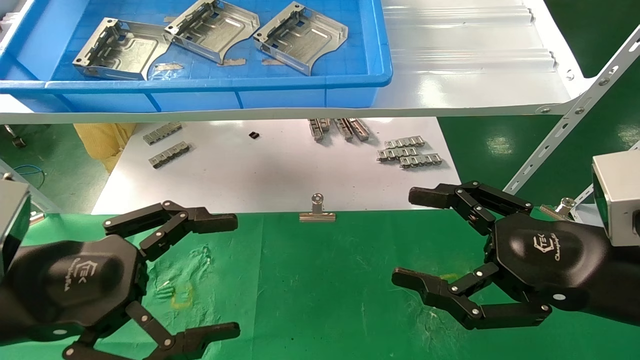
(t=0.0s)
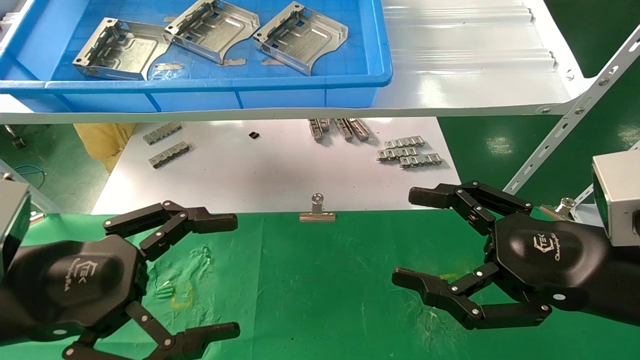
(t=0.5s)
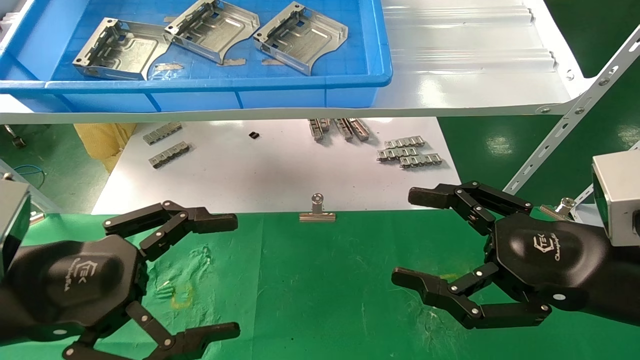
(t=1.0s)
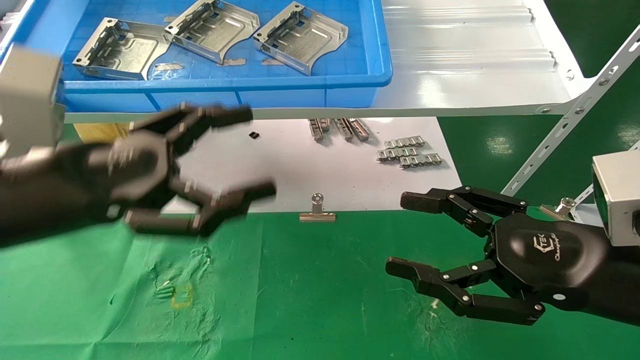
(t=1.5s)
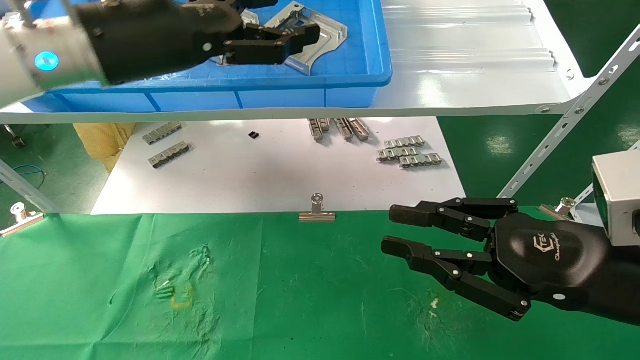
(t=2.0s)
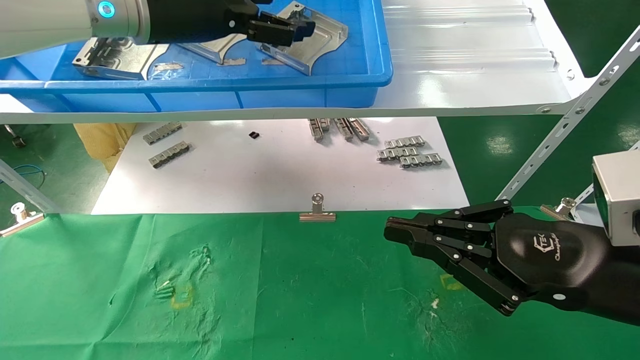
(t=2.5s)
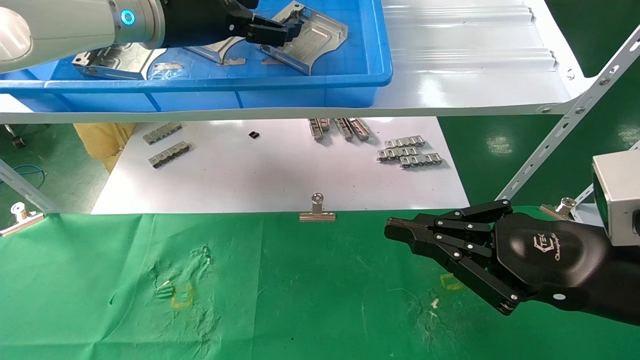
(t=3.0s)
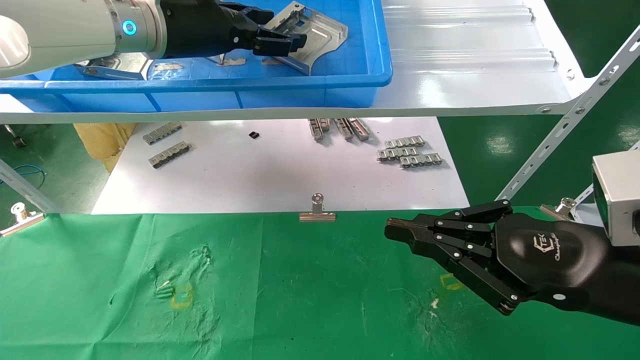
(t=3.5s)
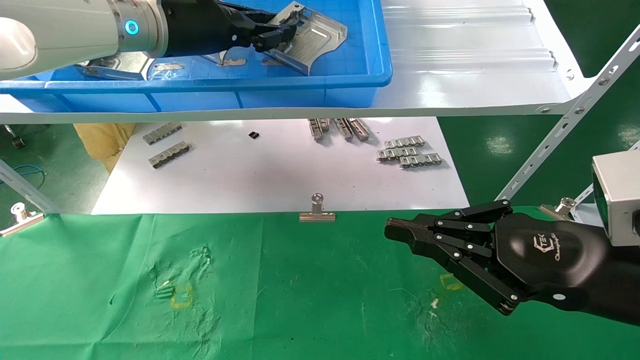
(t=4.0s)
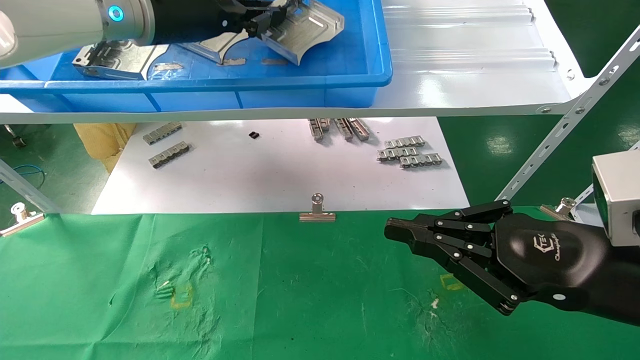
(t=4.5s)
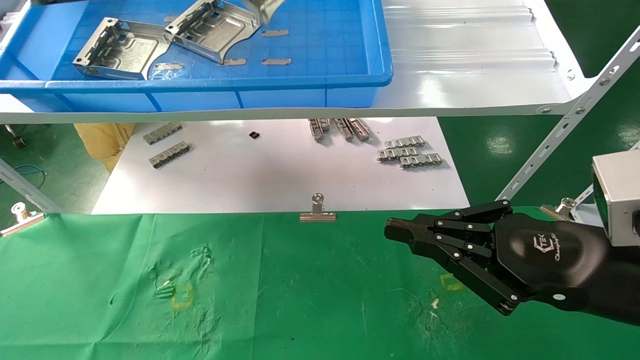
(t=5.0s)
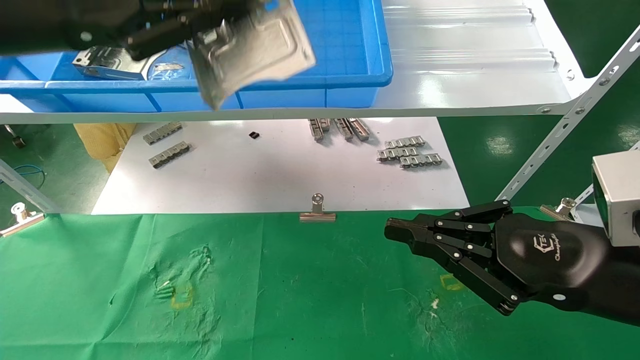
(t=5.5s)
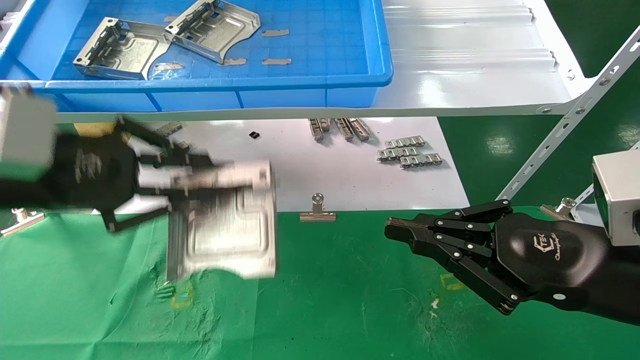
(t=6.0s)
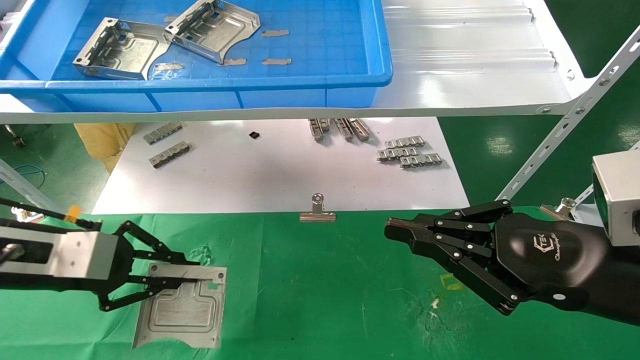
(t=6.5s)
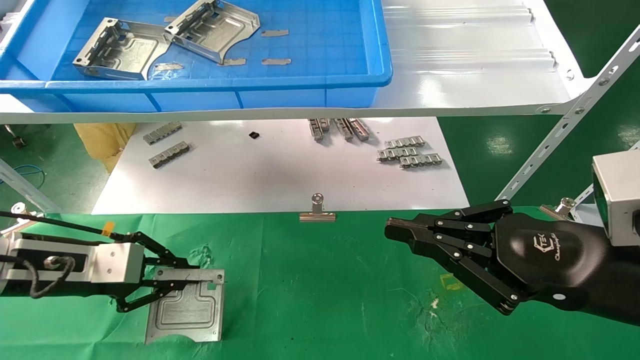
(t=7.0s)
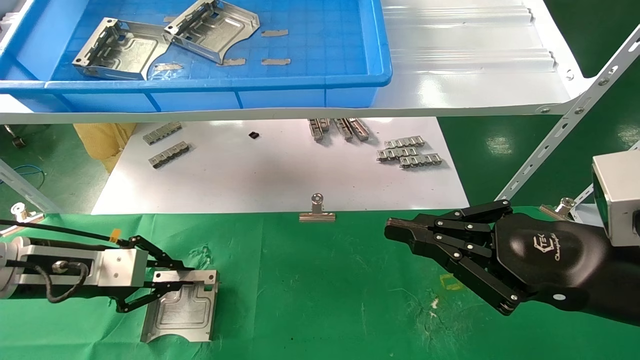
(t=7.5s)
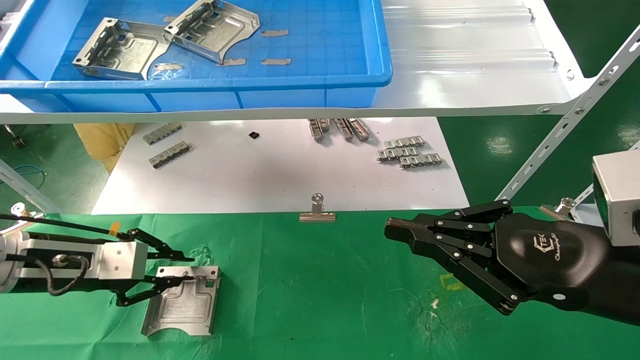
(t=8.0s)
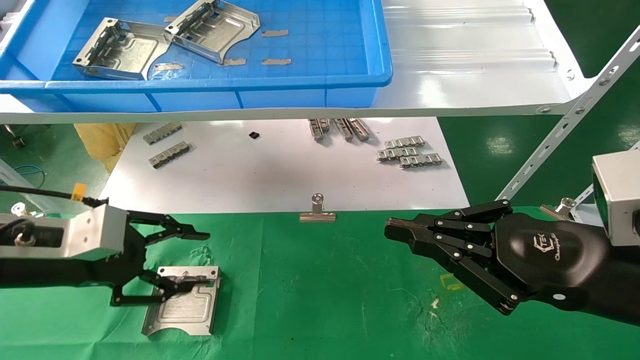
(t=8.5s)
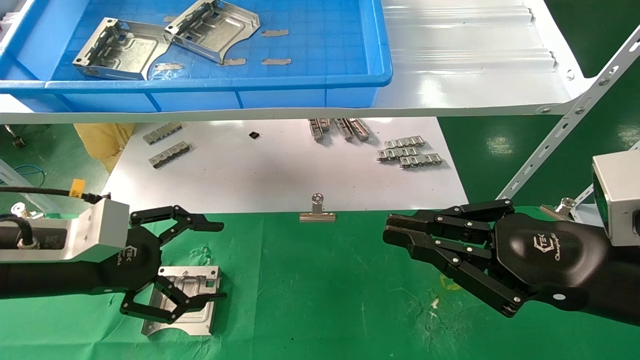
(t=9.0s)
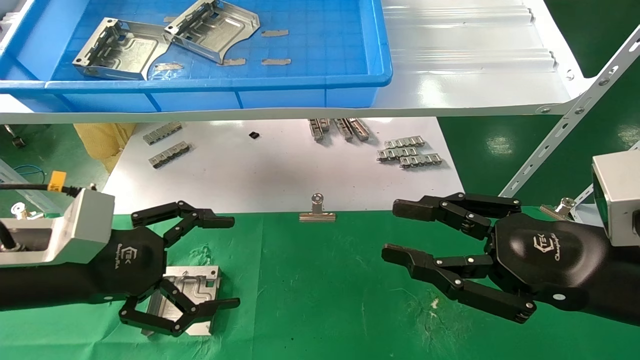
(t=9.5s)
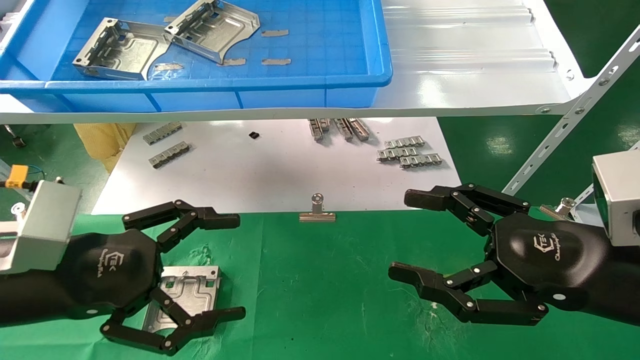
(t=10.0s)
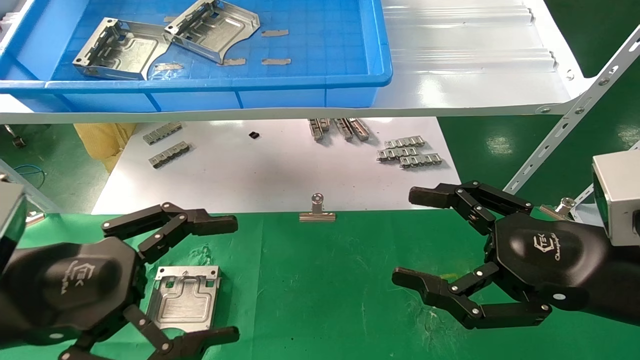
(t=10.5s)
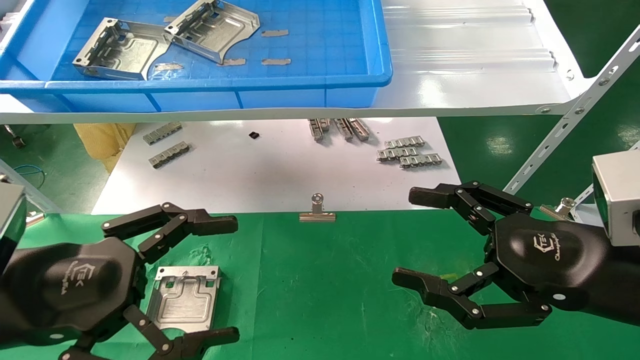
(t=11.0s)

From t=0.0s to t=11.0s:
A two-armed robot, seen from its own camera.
Task of the whole recording: use the mechanical arm to pick up the parts and place them on the table.
Step, from t=1.5s to t=4.0s: Pick up the hard drive bracket from the feeding area.
Step, from t=4.5s to t=8.0s: Place the hard drive bracket into the box.
From t=0.0s to t=2.0s: The right gripper closes its fingers. Meanwhile the left gripper is displaced upward, forward and to the right by about 25 cm.
From t=2.0s to t=3.5s: The right gripper closes up, while the left gripper shifts roughly 10 cm forward.
From t=3.5s to t=5.5s: The left gripper goes some 20 cm backward and to the left, and closes up.
From t=5.5s to t=7.5s: The left gripper shifts approximately 25 cm downward.
From t=7.5s to t=9.0s: The left gripper moves backward, about 5 cm, and opens its fingers.
From t=9.0s to t=11.0s: The left gripper shifts roughly 10 cm backward. The right gripper opens.
